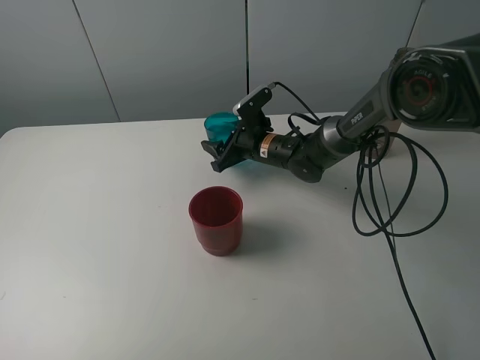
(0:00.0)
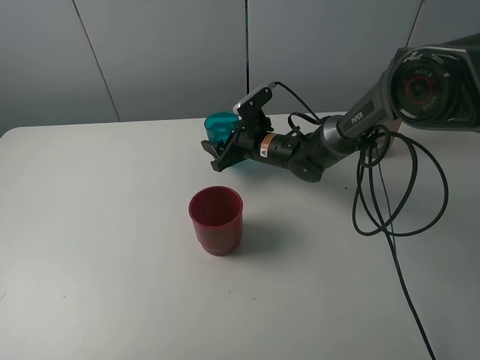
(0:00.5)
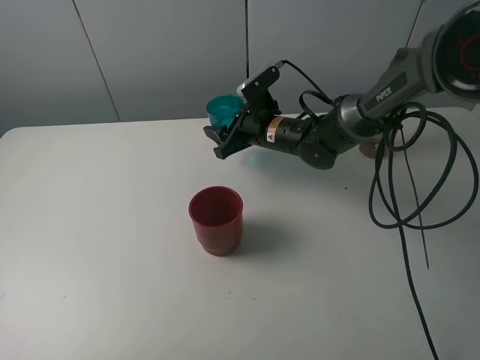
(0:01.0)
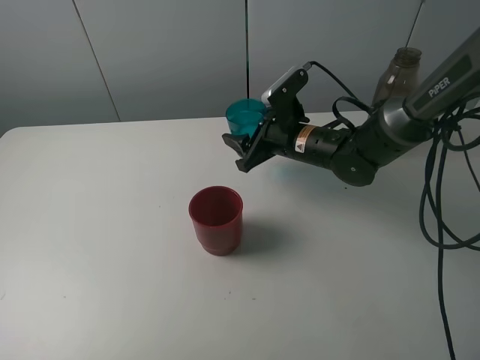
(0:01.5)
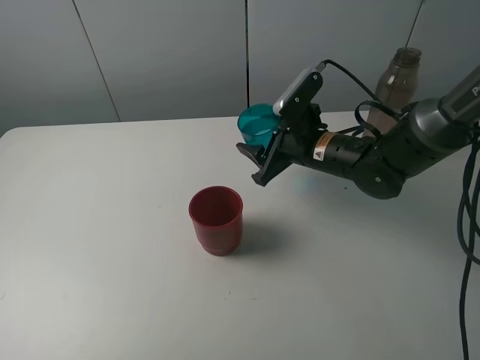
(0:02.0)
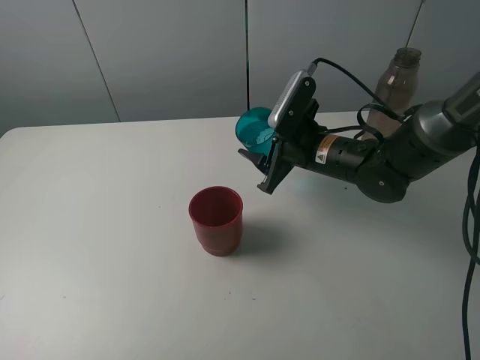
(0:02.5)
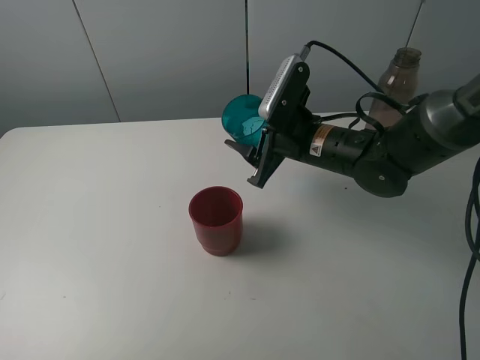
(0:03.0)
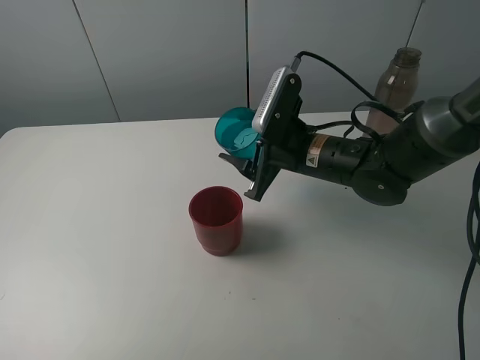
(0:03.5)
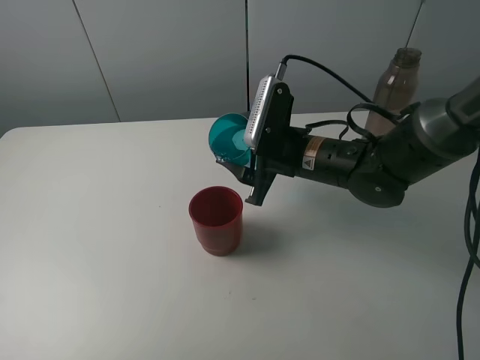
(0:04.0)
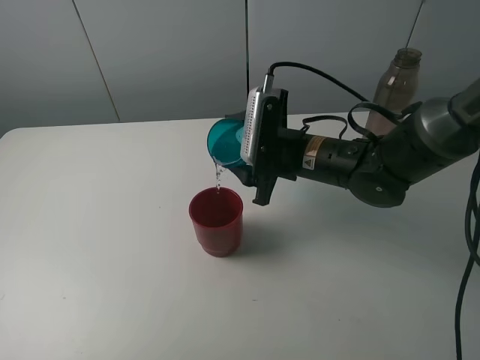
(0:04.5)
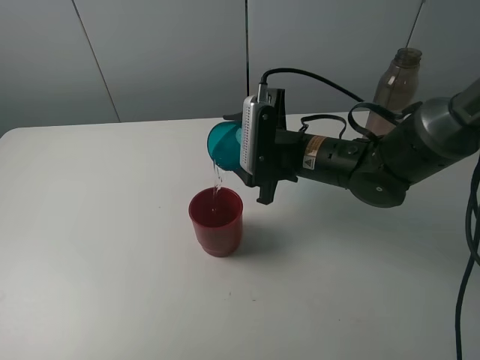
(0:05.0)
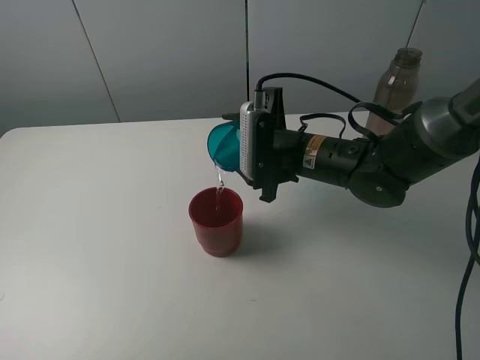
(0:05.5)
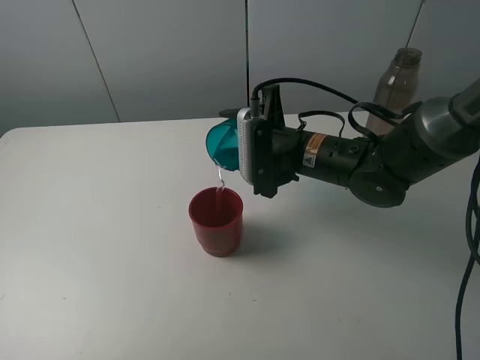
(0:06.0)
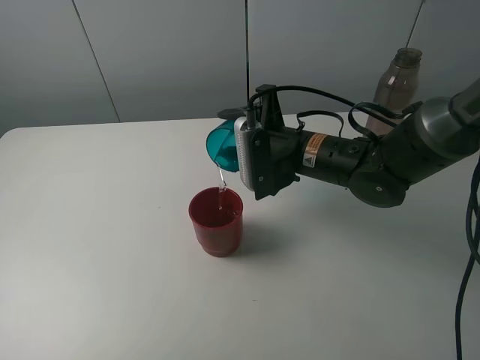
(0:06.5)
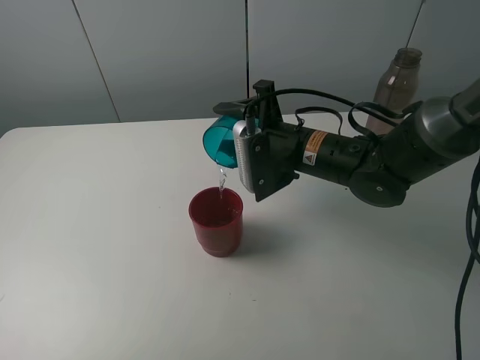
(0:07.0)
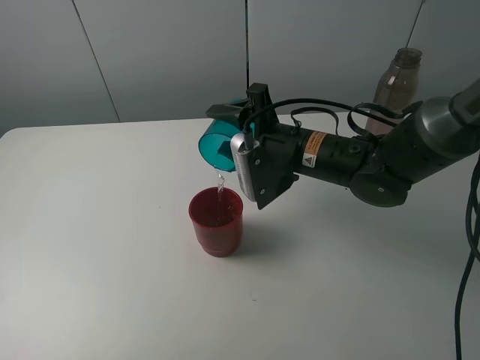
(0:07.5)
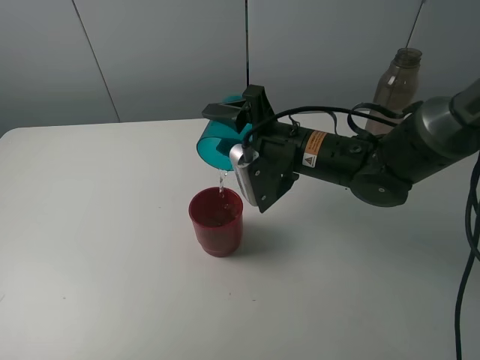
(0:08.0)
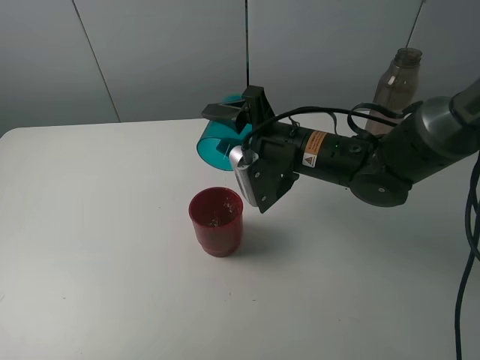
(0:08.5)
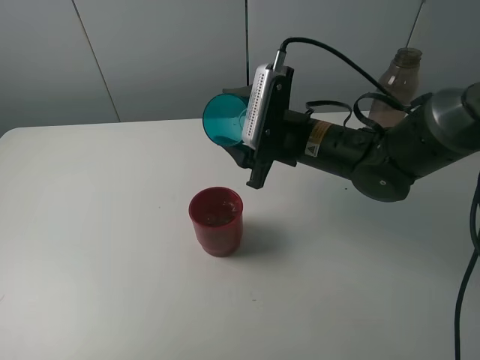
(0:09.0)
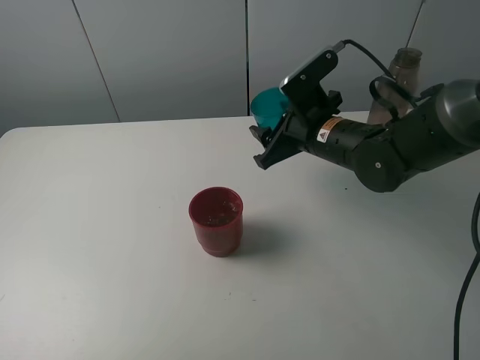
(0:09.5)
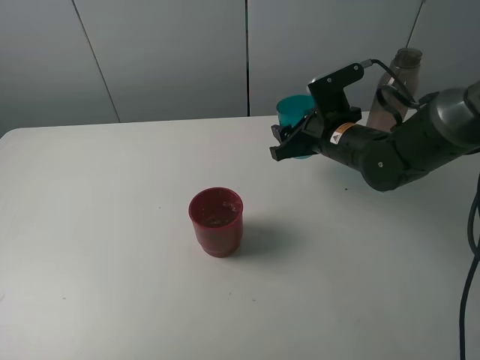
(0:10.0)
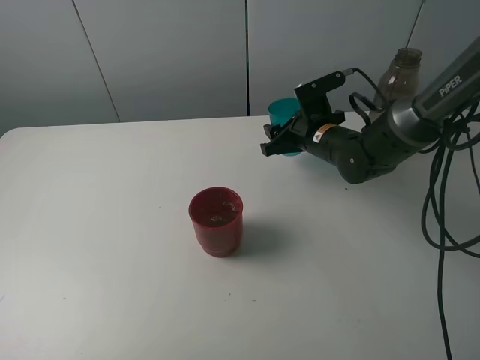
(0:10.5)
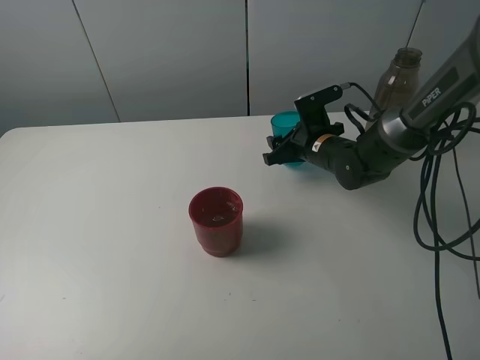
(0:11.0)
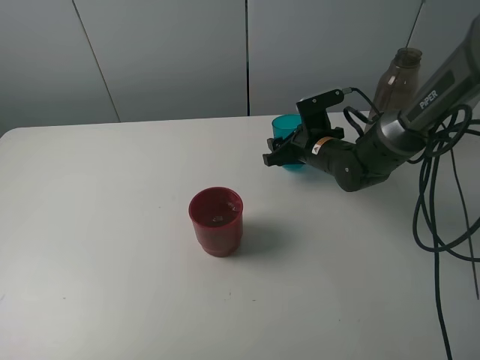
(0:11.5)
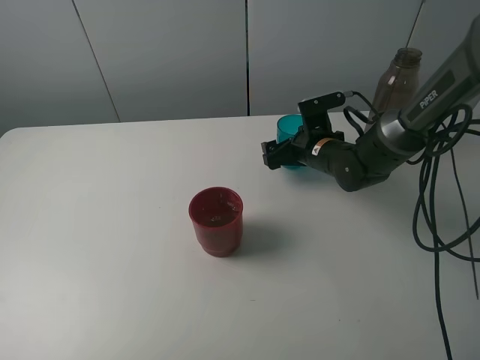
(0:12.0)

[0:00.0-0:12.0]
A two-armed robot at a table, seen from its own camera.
Task of the whole recording: pick up the bottle and pour water into the cup, then pick up the cup containing water and pour it into another cup.
Step, 0:00.0 to 0:08.5: Pour water from blue cup to red cup with the right gripper.
0:00.0 to 0:02.0: The right gripper moves backward, upward and to the right, some 15 cm.
0:08.0 to 0:10.0: The right gripper is displaced to the right by some 5 cm.
0:10.0 to 0:12.0: The right gripper moves downward, roughly 5 cm, and opens up.

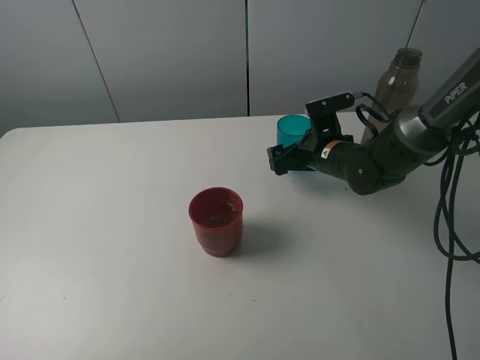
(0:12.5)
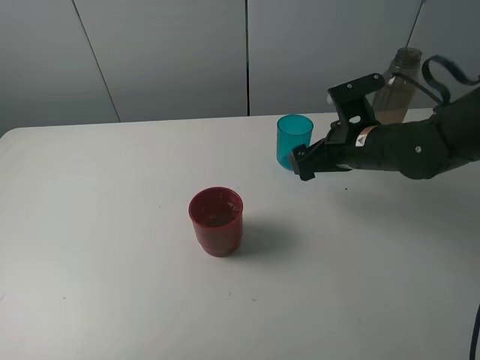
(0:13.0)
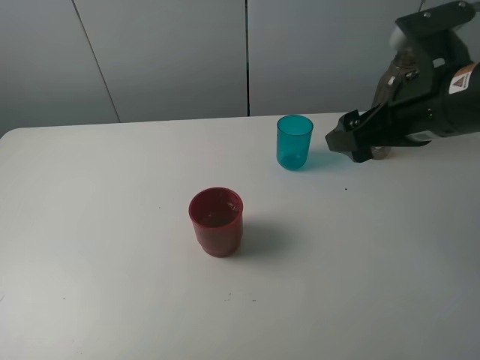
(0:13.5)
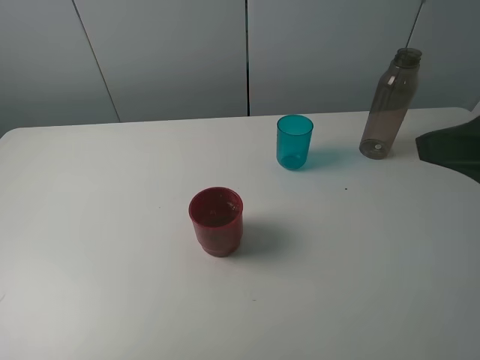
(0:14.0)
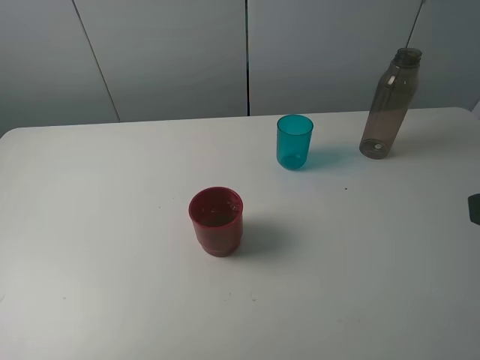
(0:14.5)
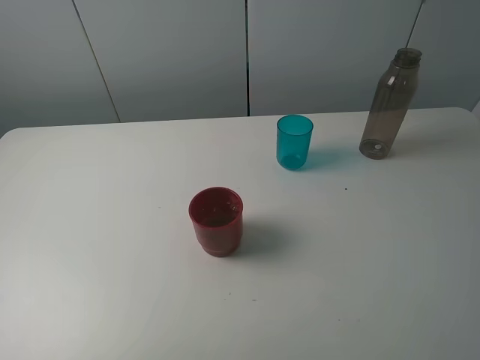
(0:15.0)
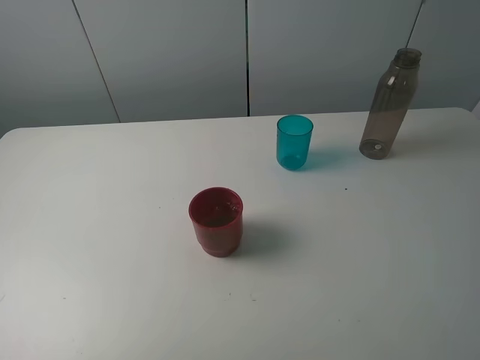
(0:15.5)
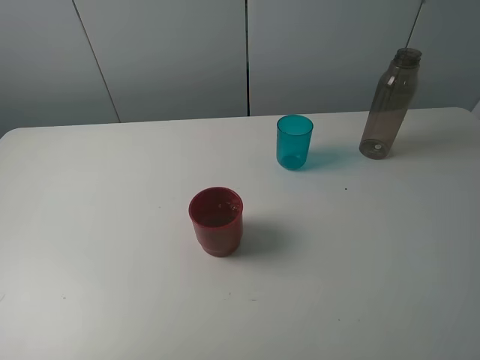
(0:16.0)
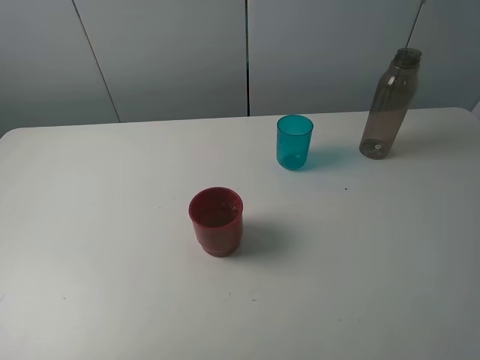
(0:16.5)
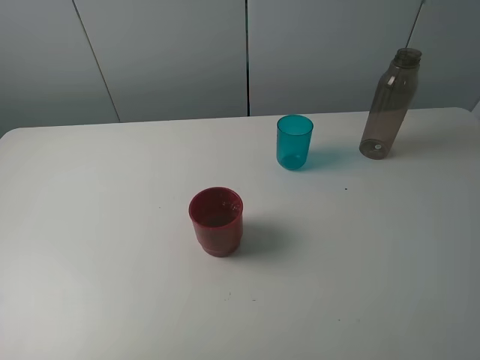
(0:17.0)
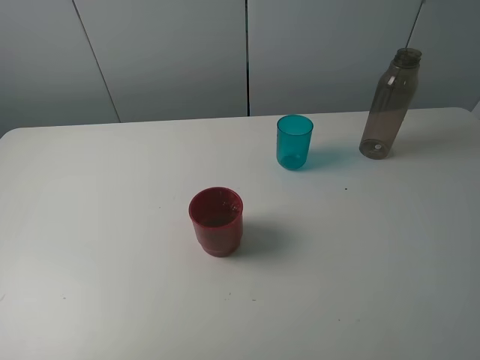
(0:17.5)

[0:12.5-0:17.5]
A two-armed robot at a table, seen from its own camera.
Task of the whole recording: pick up the bottle and pour water into the cup, then pick up the cup containing water and pour it into another cup.
0:12.5 to 0:15.0: The right gripper shifts about 40 cm backward, upward and to the right.
